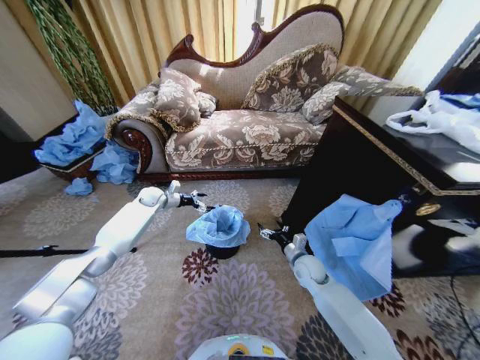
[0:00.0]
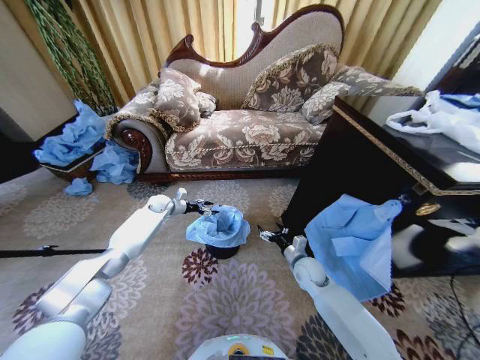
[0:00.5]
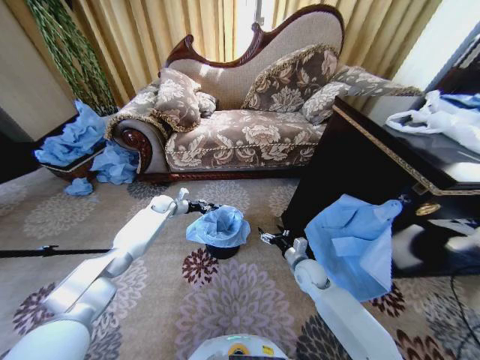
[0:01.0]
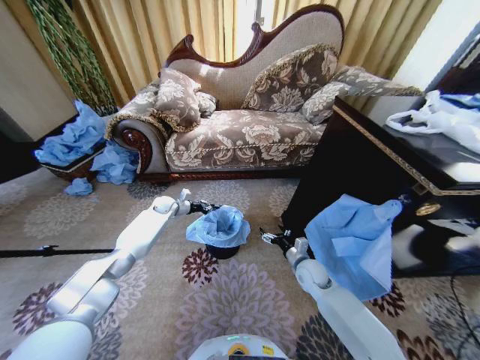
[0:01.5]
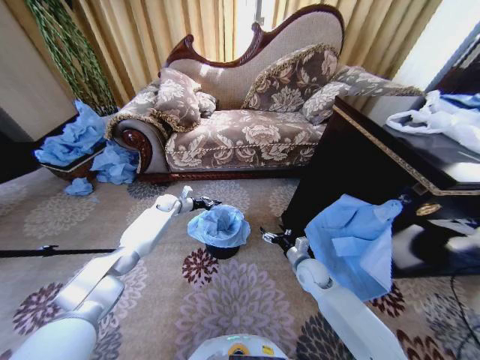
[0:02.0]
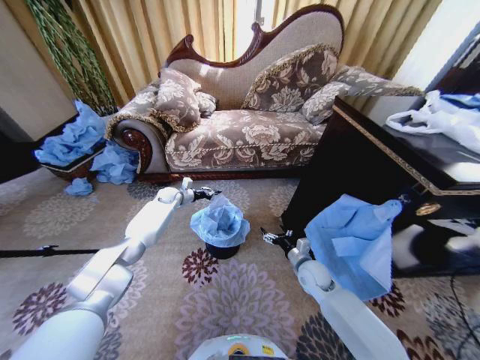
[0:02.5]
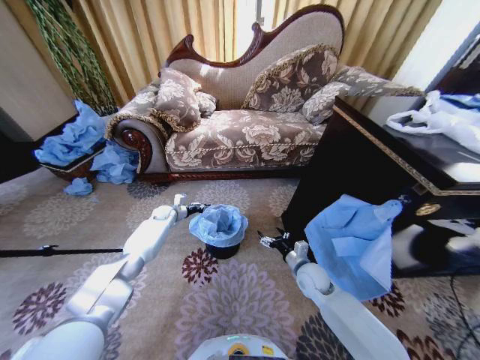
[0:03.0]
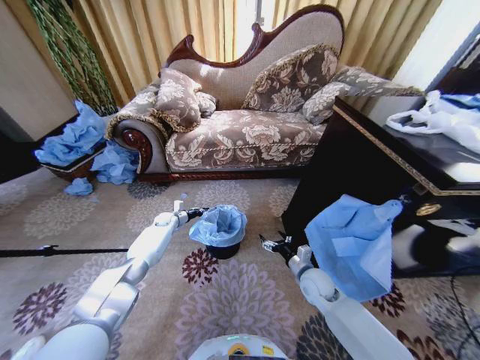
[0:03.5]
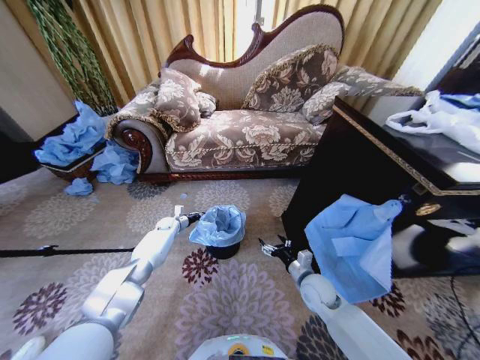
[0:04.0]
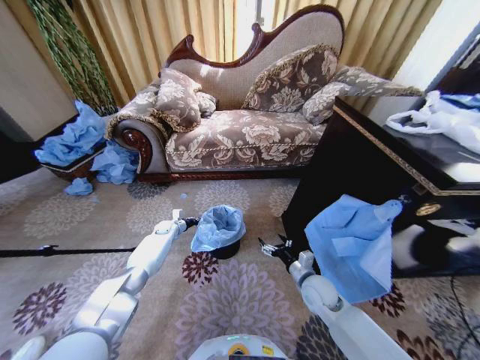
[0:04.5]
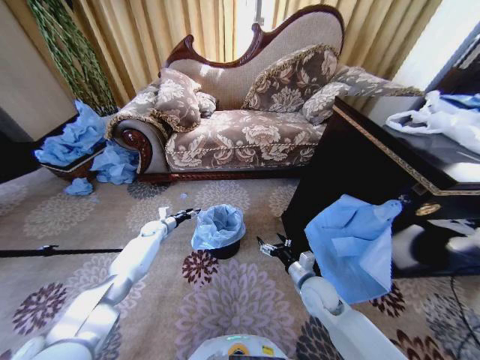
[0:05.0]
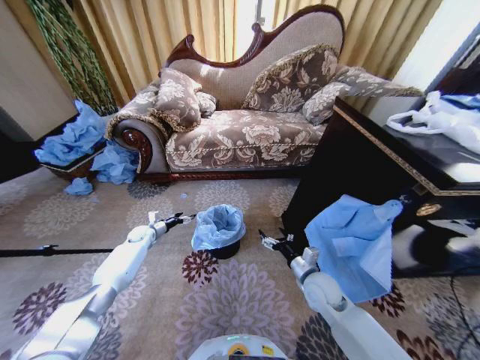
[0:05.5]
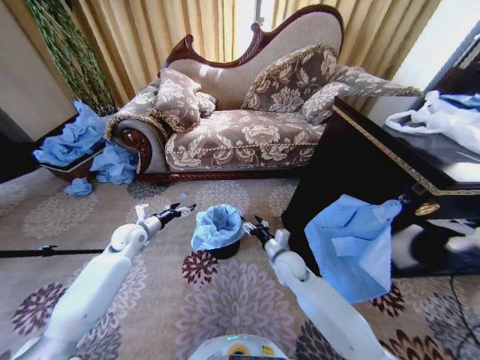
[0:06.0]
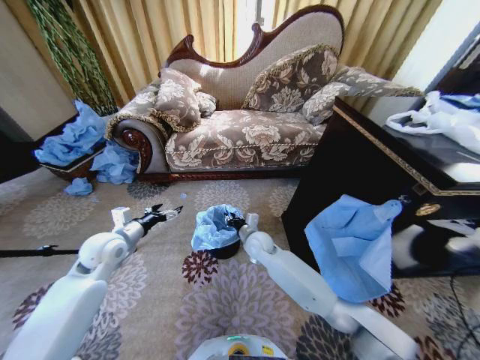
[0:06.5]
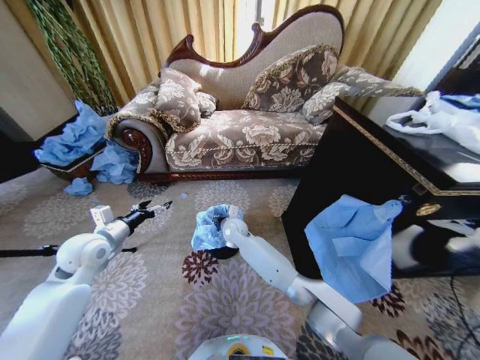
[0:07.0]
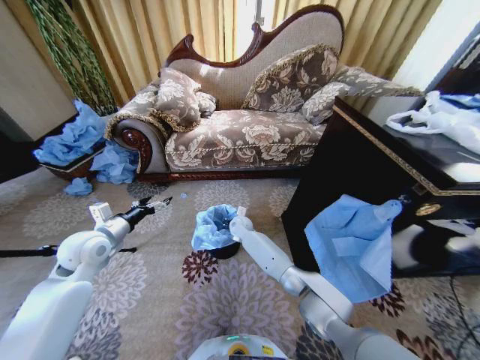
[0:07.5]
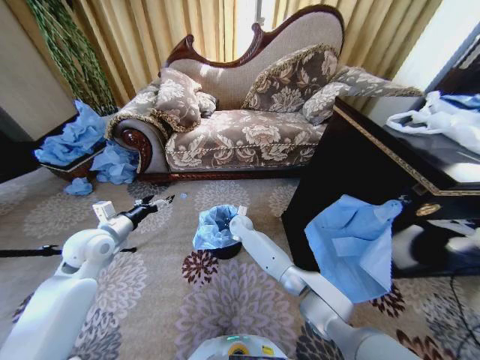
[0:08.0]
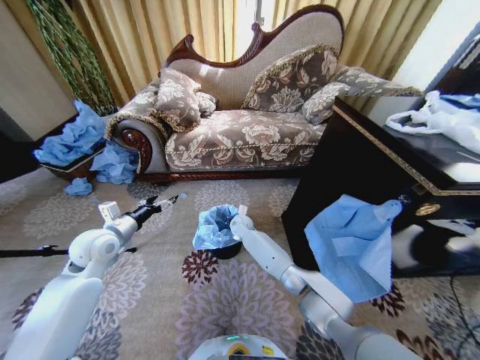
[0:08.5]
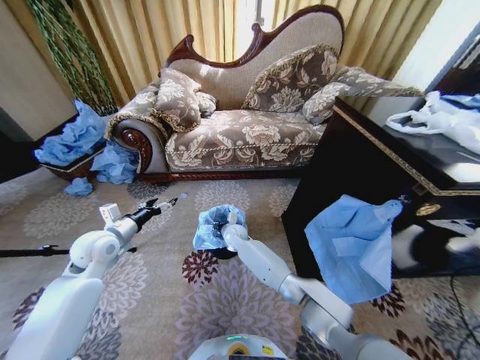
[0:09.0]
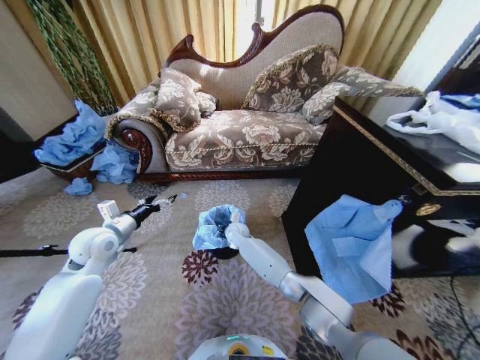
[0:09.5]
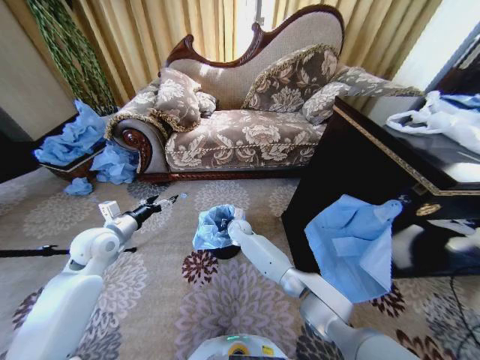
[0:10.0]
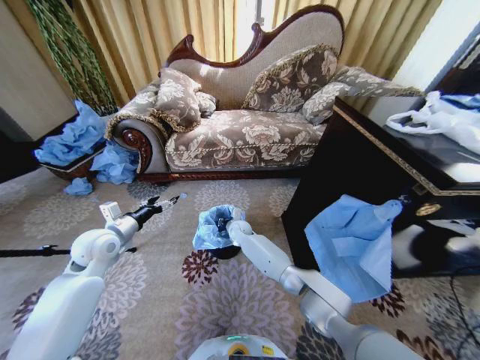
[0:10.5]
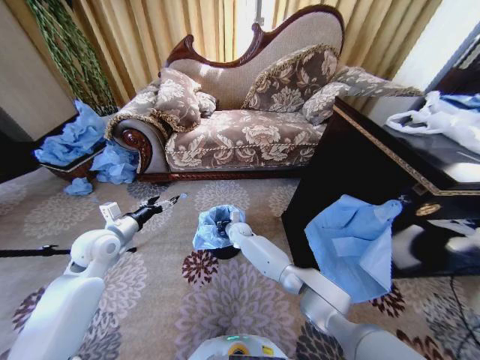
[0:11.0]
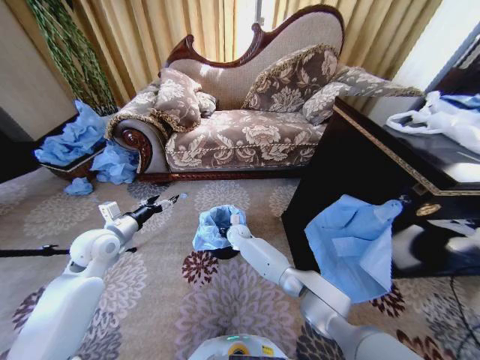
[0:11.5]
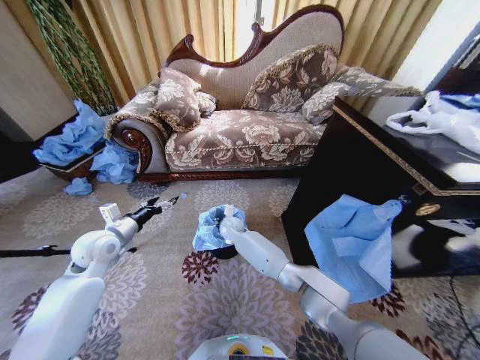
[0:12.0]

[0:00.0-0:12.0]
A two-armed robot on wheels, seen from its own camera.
Task of the whole recording: Place a garbage bag over the trash bin.
0:00.0 to 0:02.0: The left gripper changes place by some 5 cm, and closes its fingers.
0:02.0 to 0:04.0: The left gripper goes roughly 10 cm downward. The right gripper goes approximately 5 cm backward.
0:04.0 to 0:06.0: The left gripper is displaced backward and upward by roughly 25 cm, and opens. Meanwhile the right gripper moves to the left and forward, roughly 10 cm.
0:06.0 to 0:08.0: The right gripper travels forward and to the left by approximately 20 cm, and closes. Meanwhile the left gripper heads backward and upward, covering about 10 cm.
0:08.0 to 0:10.0: There are only small adjustments of the grippers.
0:10.0 to 0:12.0: The grippers stay close to where they were, moving slightly.

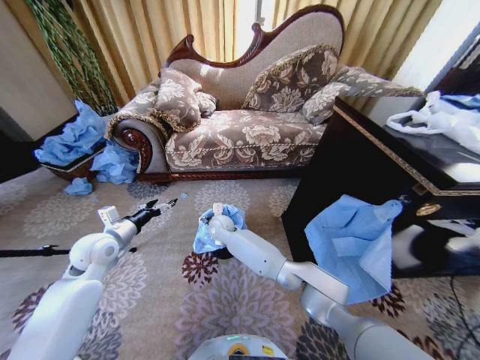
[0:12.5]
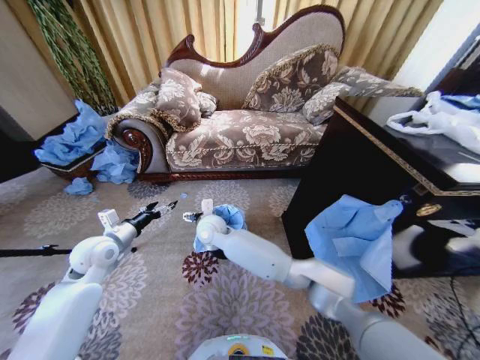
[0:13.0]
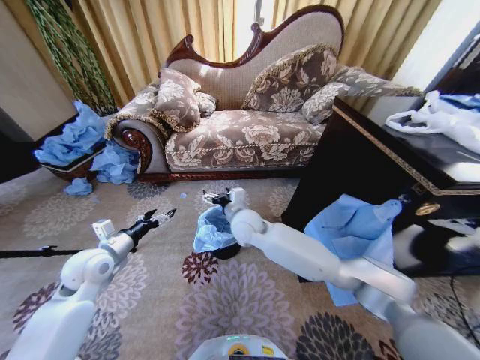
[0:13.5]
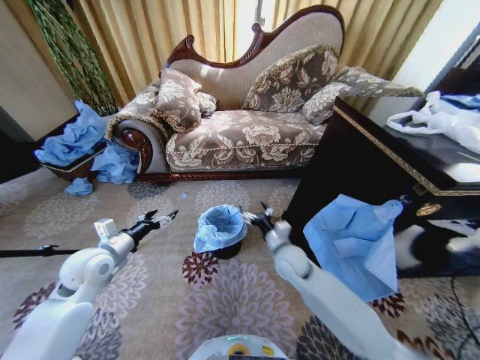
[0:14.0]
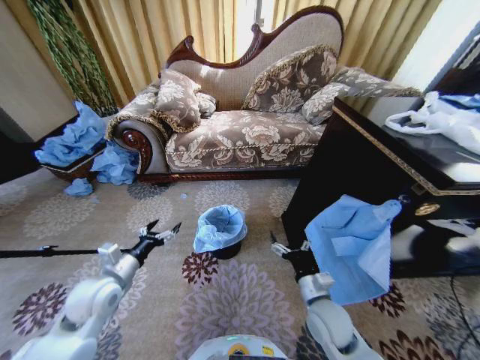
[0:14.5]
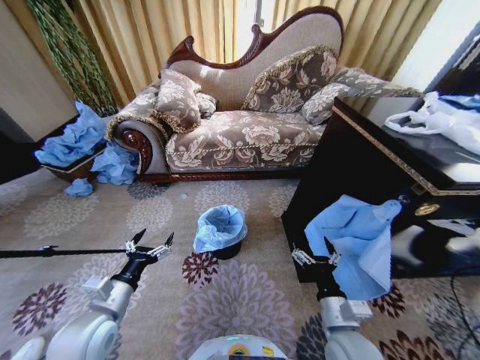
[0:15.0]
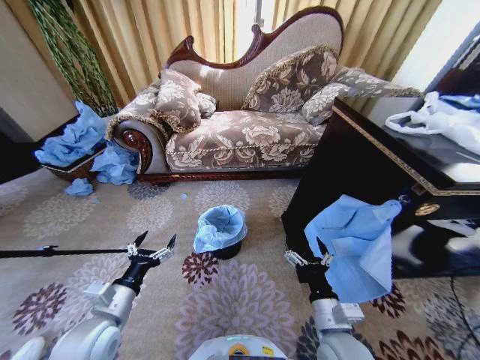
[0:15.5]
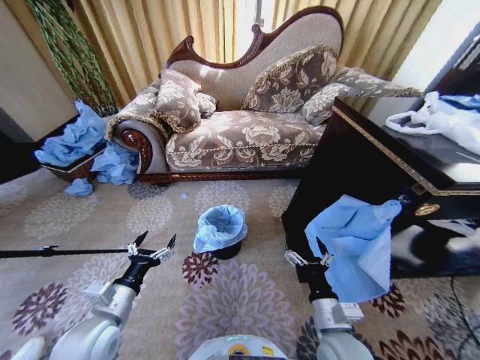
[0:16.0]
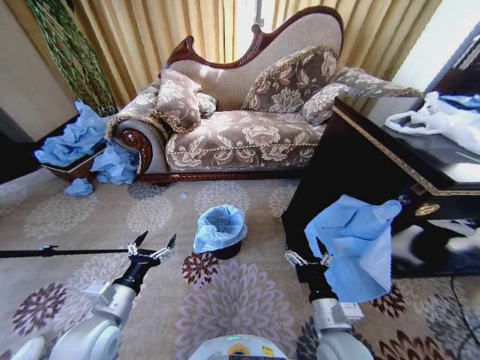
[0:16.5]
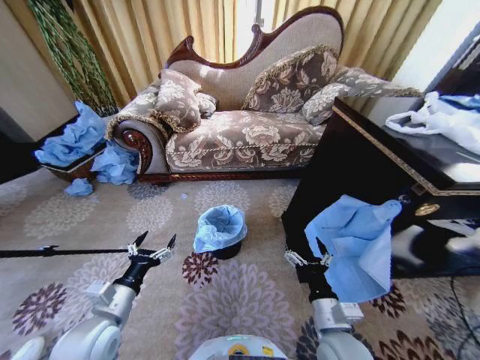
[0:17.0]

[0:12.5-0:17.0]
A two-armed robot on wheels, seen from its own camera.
Task of the whole recording: Place a garbage bag over the trash bin.
0:12.5 to 0:14.5: The right gripper heads to the right and backward, covering roughly 40 cm, while the left gripper goes some 10 cm backward.
0:14.5 to 0:17.0: Both grippers move backward, approximately 10 cm.
